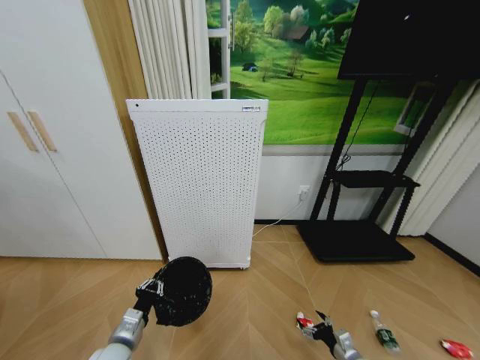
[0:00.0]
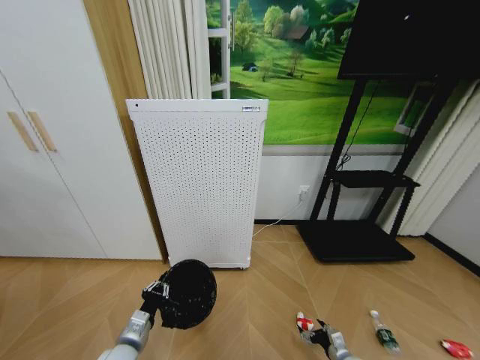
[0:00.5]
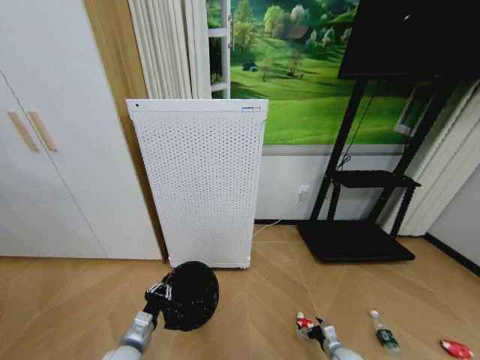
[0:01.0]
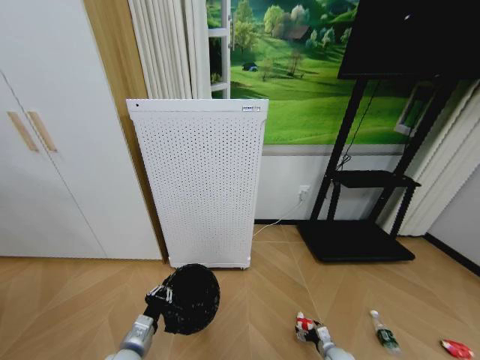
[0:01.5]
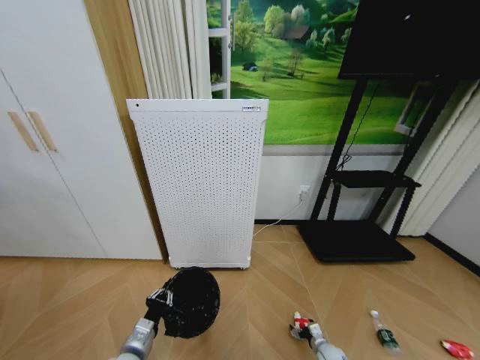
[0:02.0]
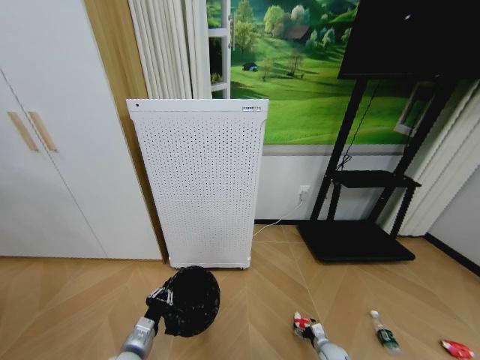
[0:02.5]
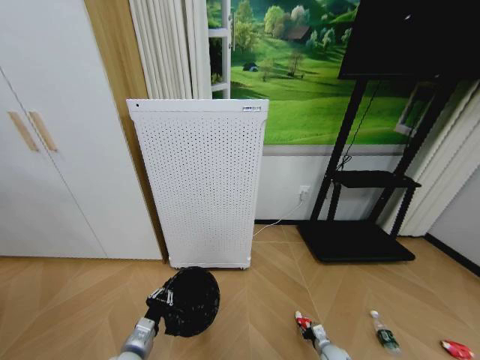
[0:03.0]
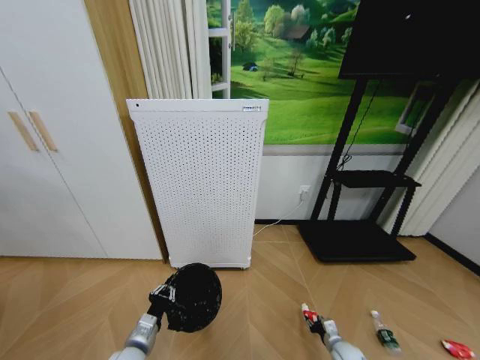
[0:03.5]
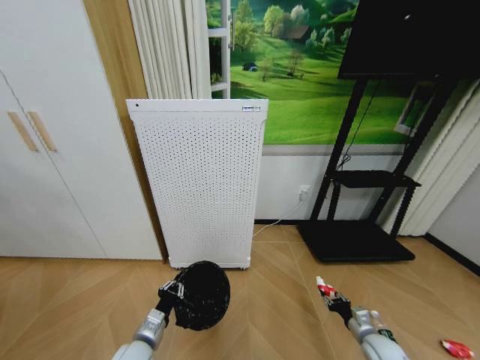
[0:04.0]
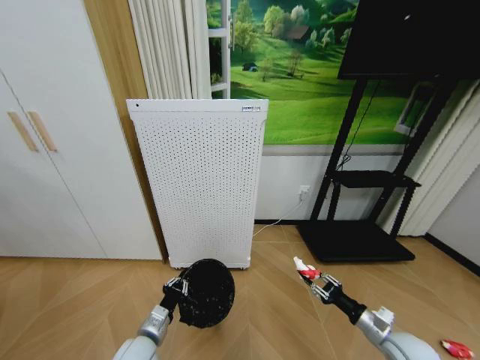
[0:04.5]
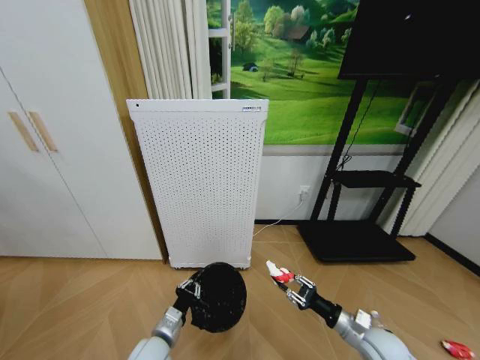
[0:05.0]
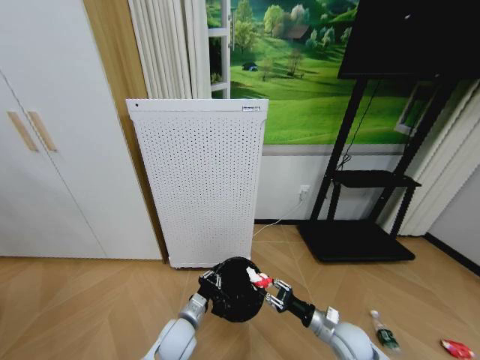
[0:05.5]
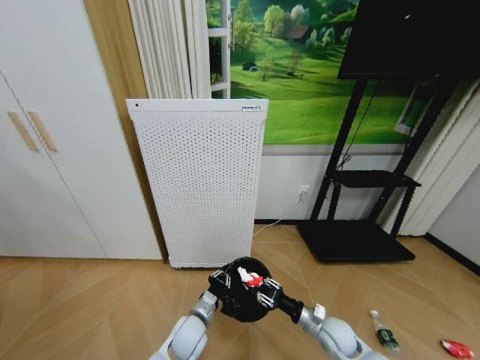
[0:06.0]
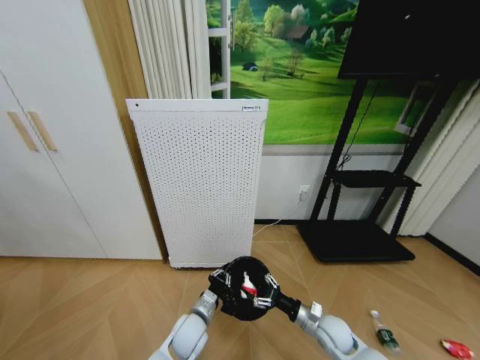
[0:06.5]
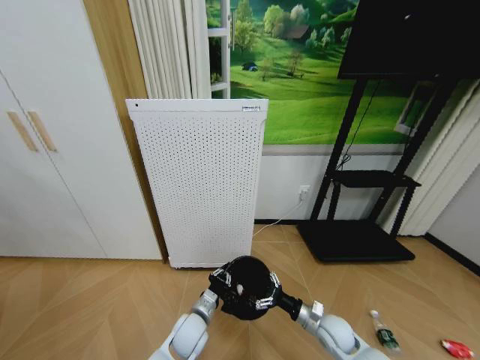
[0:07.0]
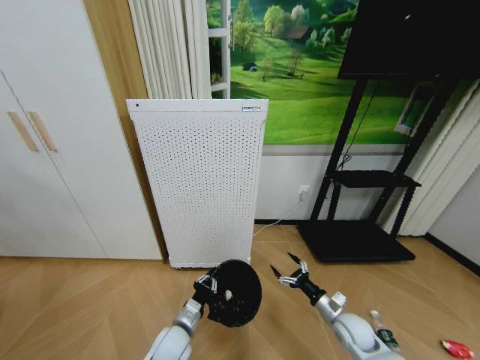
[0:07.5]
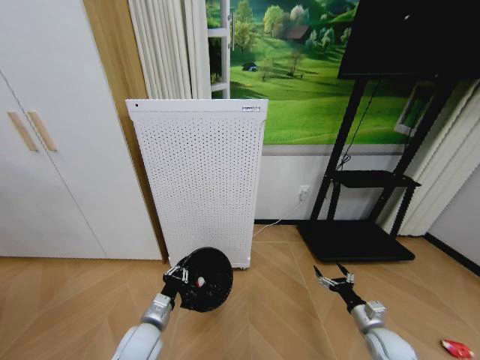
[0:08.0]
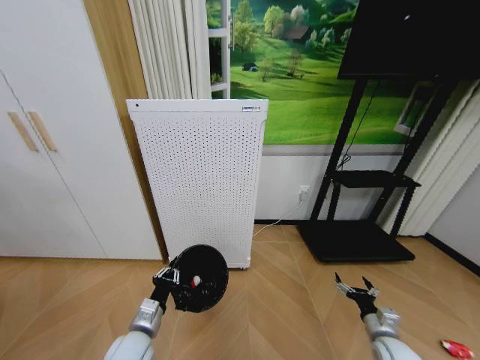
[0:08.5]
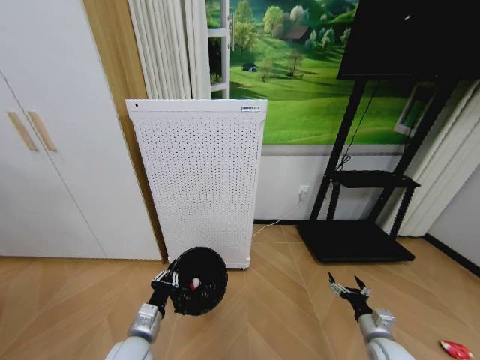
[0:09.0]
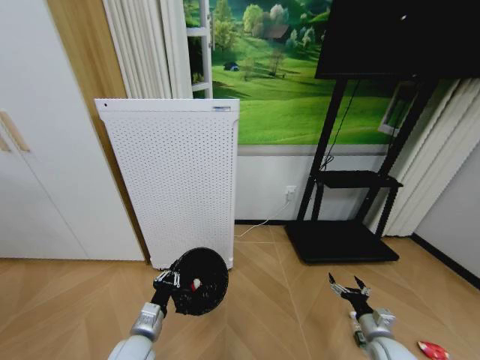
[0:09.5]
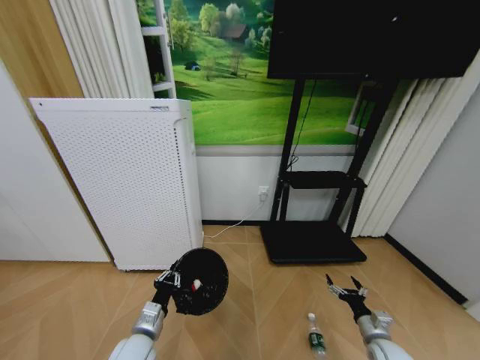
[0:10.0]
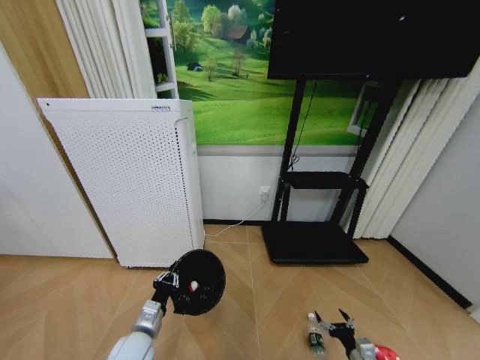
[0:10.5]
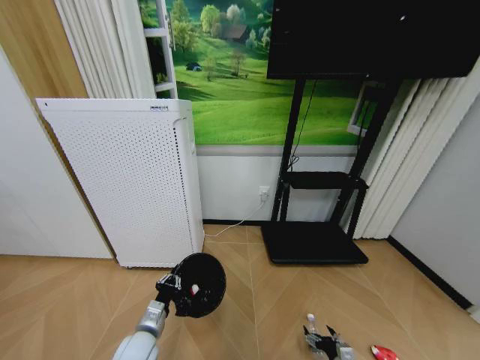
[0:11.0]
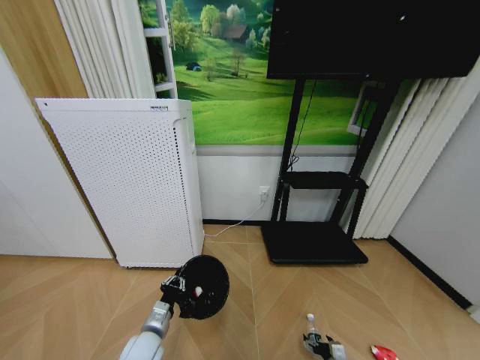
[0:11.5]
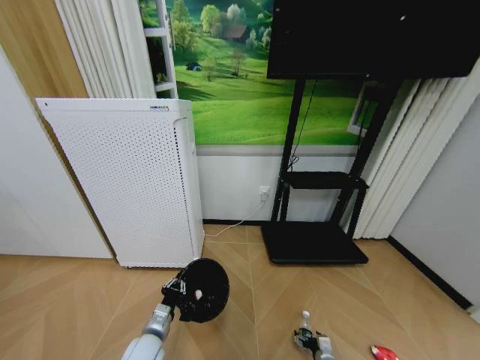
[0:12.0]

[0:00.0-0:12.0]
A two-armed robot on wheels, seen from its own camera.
Task of the whole recording: Pick up the trash bin and place the garbage on the floor into it.
0:00.0 to 0:02.0: The right gripper moves downward and forward, some 15 cm.
0:02.0 to 0:04.0: The right gripper moves upward and to the right, some 20 cm, and closes its fingers.
0:04.0 to 0:06.0: The right gripper moves to the left, about 15 cm; the left gripper goes roughly 15 cm to the right and forward.
0:06.0 to 0:08.0: The right gripper is displaced to the right by roughly 15 cm, and opens up. The left gripper moves to the left, approximately 10 cm.
0:10.0 to 0:12.0: The right gripper shifts roughly 20 cm downward and to the left, while the left gripper heads downward, covering approximately 5 cm.

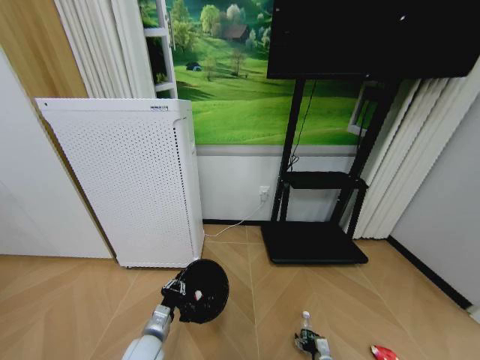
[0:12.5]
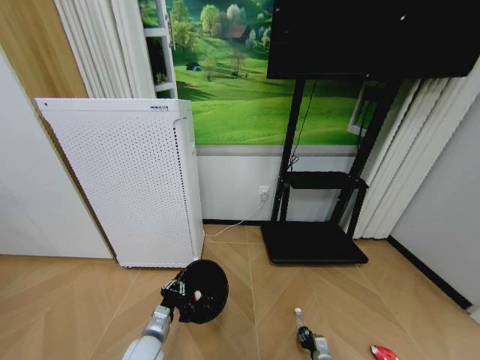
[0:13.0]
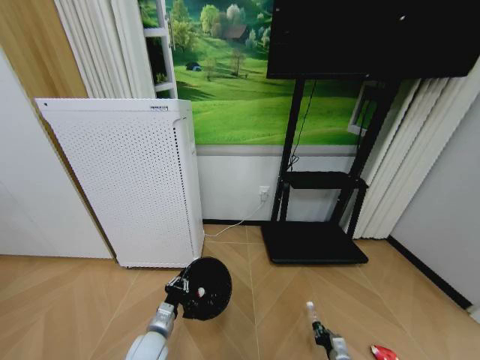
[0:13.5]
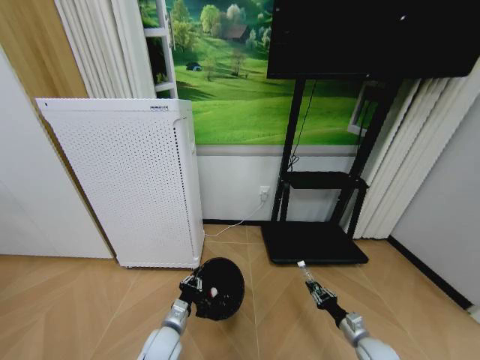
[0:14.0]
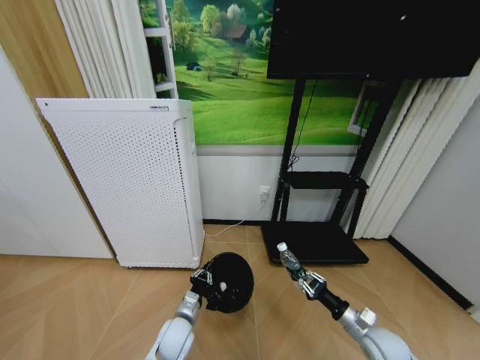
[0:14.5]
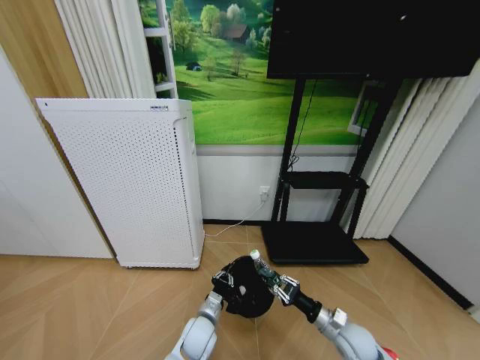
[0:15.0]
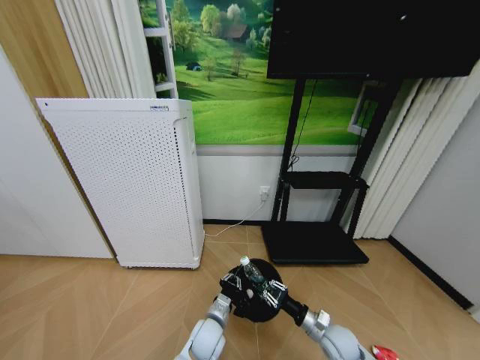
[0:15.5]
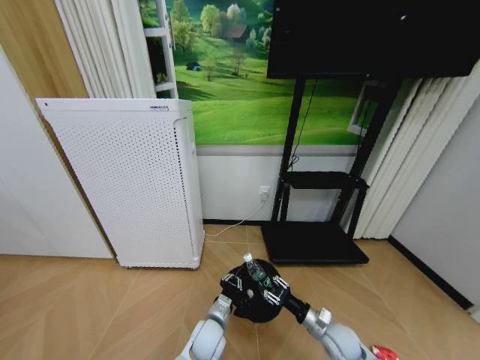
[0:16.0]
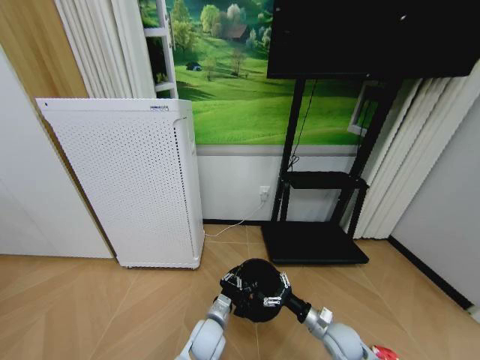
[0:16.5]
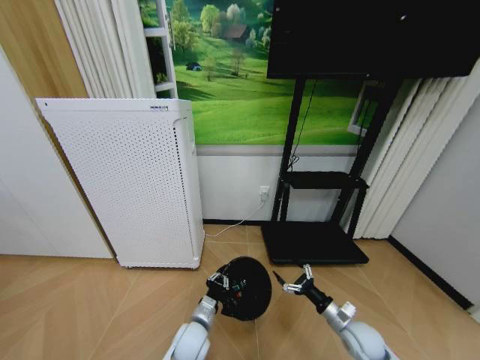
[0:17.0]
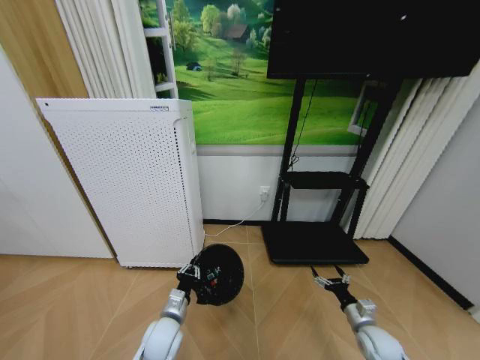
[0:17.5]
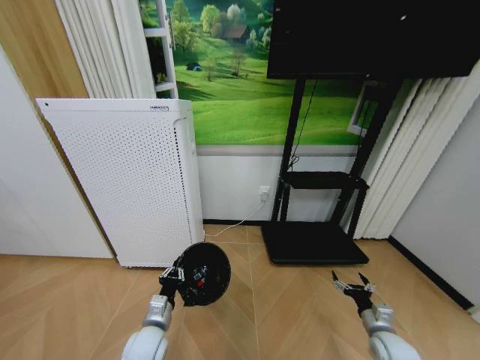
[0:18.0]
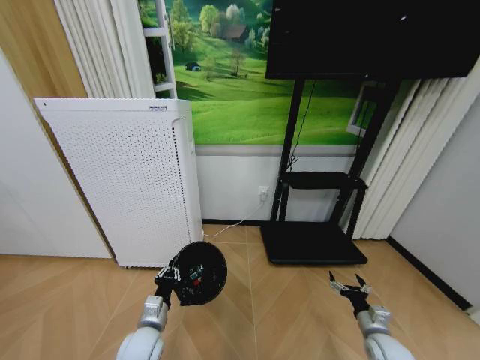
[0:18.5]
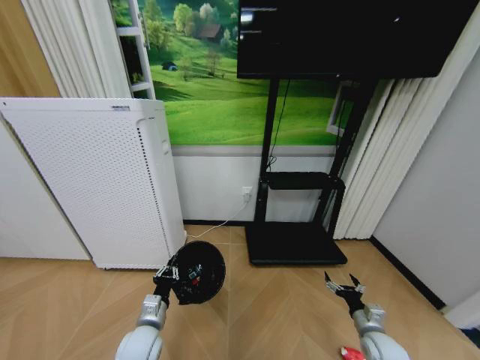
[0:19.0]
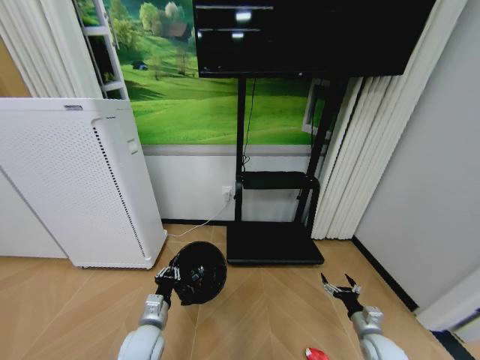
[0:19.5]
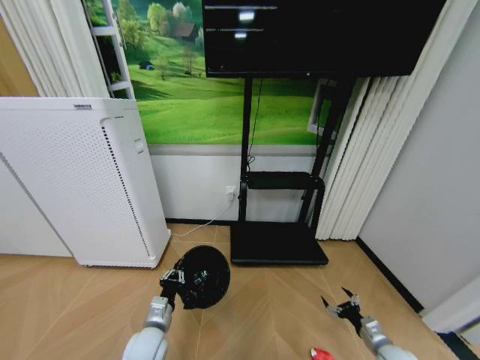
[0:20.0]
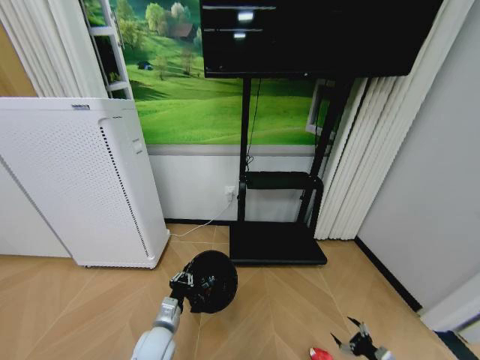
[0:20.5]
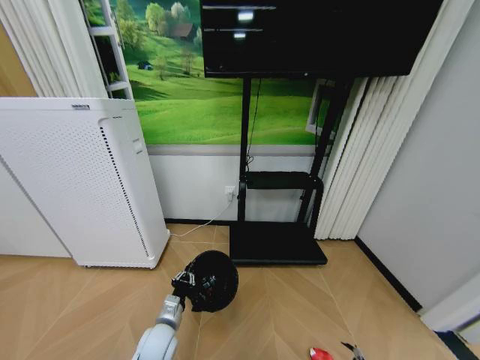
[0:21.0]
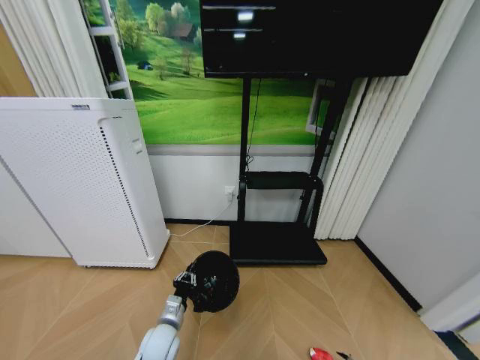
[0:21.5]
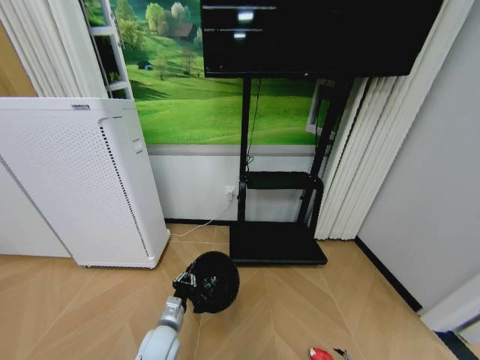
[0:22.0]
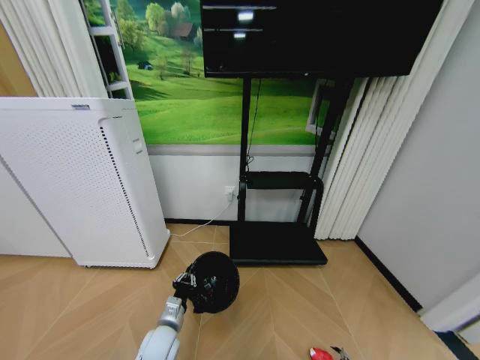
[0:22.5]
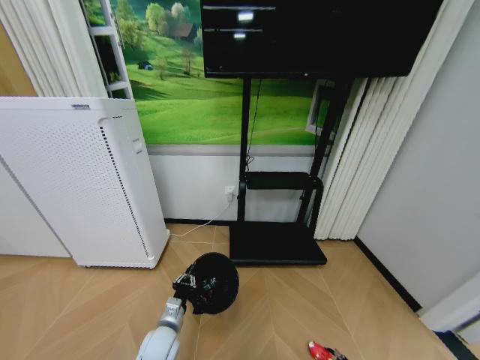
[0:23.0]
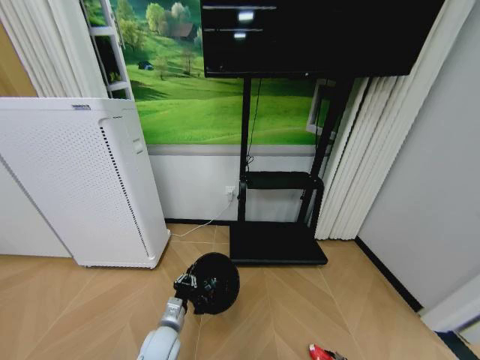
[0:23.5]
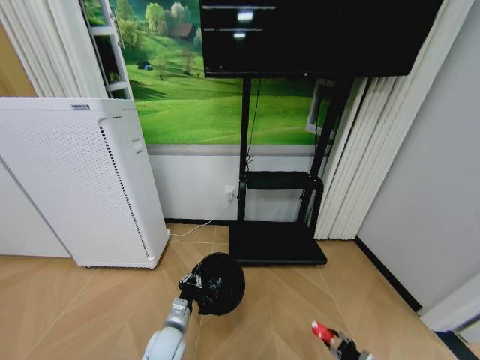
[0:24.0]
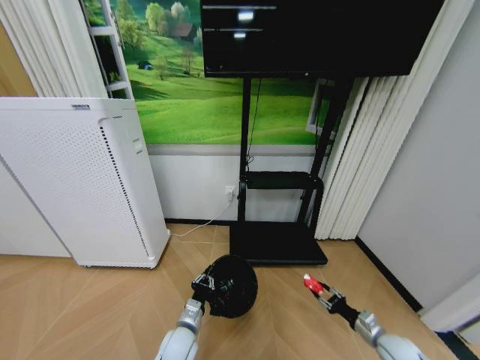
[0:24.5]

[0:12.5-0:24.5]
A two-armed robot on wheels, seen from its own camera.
Task of the whole recording: Pick up the trash bin and place the garbage on the floor into it.
0:12.5 to 0:14.5: The left gripper travels to the right by some 10 cm. Meanwhile the right gripper goes about 25 cm upward, and closes its fingers.
0:14.5 to 0:16.5: The right gripper travels to the left by roughly 10 cm, and opens, while the left gripper shifts approximately 10 cm to the right.
0:16.5 to 0:18.5: The left gripper heads to the left and upward, covering some 15 cm; the right gripper travels to the right by approximately 10 cm.
0:18.5 to 0:20.5: The right gripper moves backward, to the right and downward, about 15 cm.
0:20.5 to 0:22.5: The right gripper goes about 10 cm downward.
0:22.5 to 0:24.5: The right gripper moves upward and forward, roughly 20 cm, and closes its fingers, while the left gripper shifts by approximately 5 cm.

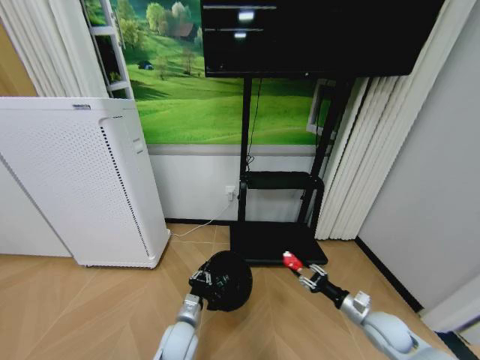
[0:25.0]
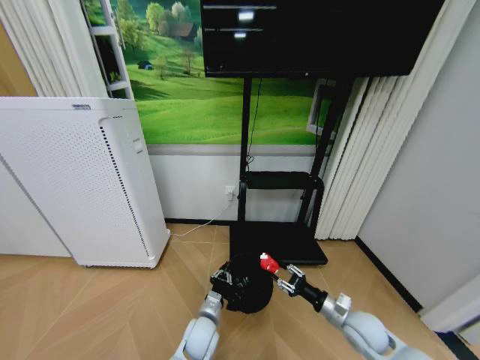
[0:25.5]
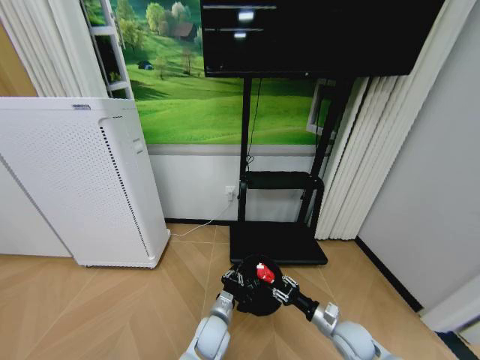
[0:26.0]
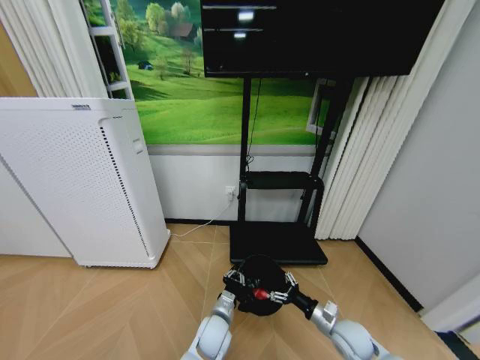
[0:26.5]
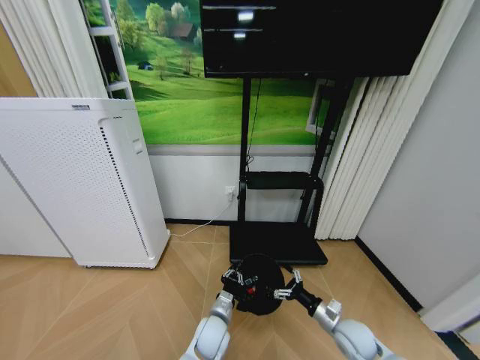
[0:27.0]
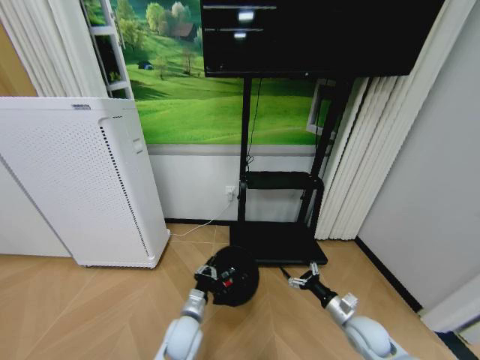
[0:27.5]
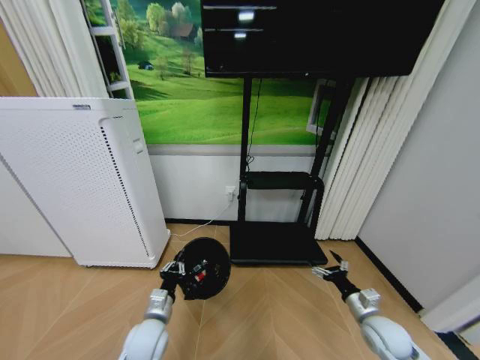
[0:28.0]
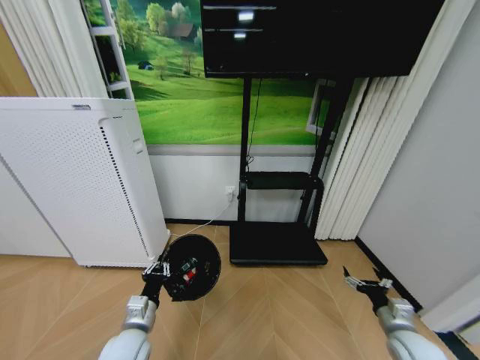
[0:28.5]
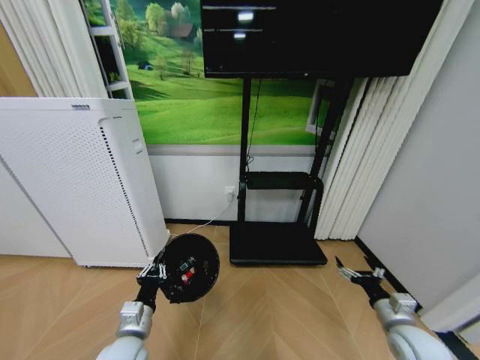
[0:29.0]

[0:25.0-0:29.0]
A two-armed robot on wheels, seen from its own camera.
Task of the whole recording: Pick up the trash bin and place the garbage on the floor into it.
0:25.0 to 0:27.0: The right gripper travels to the left by about 10 cm, and opens; the left gripper moves to the right, roughly 10 cm.
0:27.0 to 0:29.0: The right gripper heads to the right and upward, covering approximately 10 cm. The left gripper is displaced to the left, upward and backward by approximately 25 cm.
